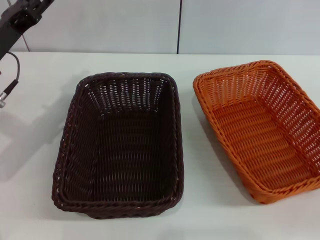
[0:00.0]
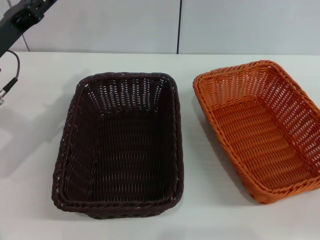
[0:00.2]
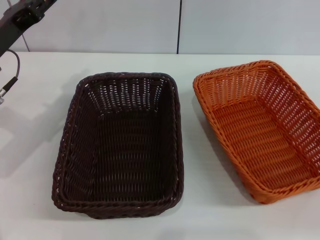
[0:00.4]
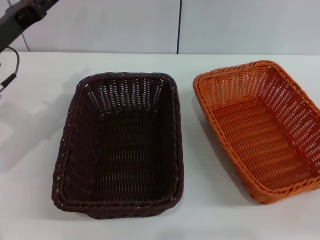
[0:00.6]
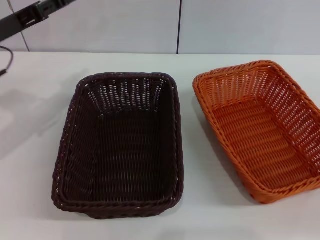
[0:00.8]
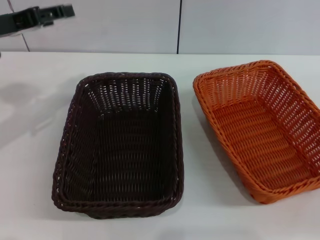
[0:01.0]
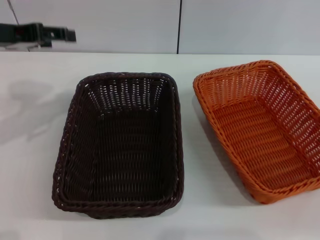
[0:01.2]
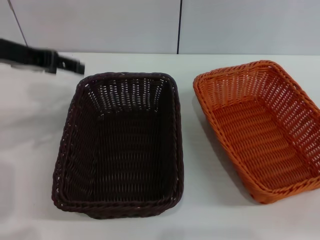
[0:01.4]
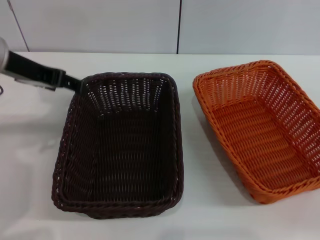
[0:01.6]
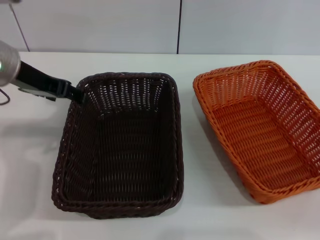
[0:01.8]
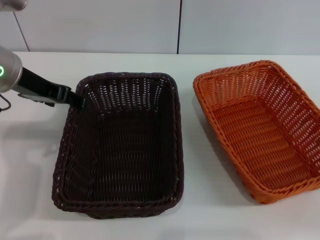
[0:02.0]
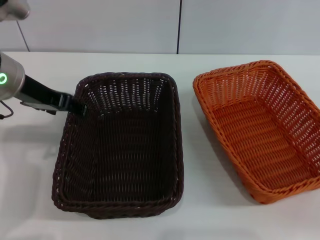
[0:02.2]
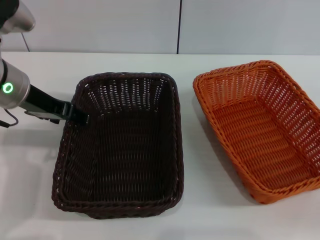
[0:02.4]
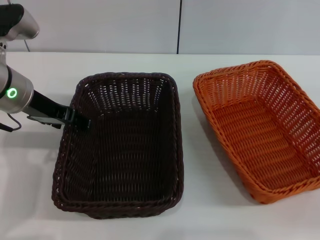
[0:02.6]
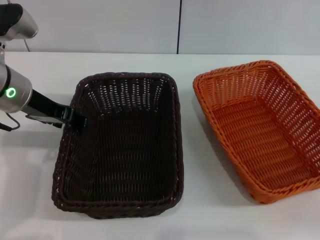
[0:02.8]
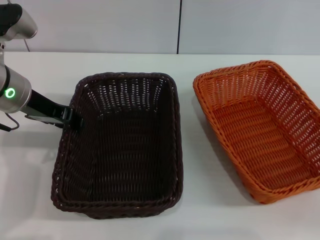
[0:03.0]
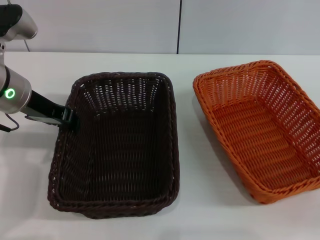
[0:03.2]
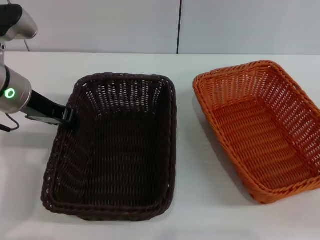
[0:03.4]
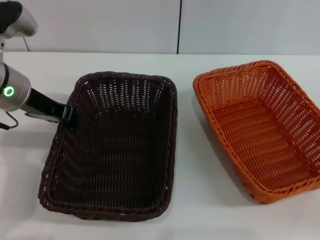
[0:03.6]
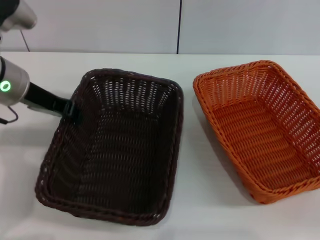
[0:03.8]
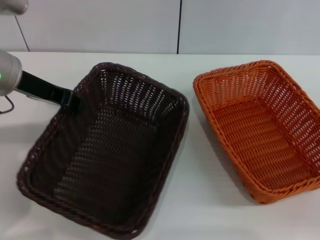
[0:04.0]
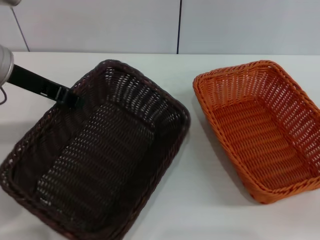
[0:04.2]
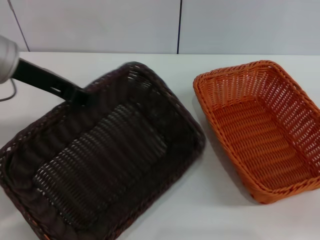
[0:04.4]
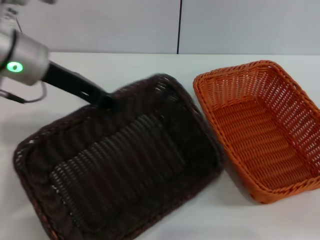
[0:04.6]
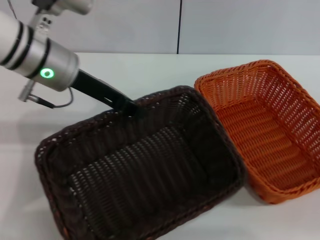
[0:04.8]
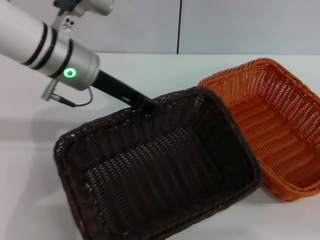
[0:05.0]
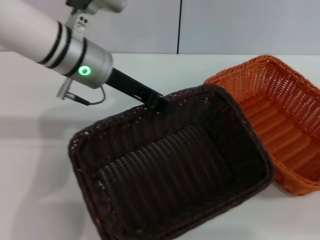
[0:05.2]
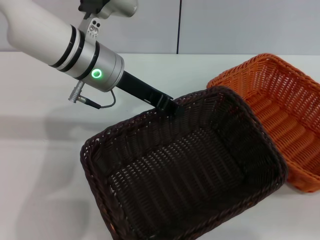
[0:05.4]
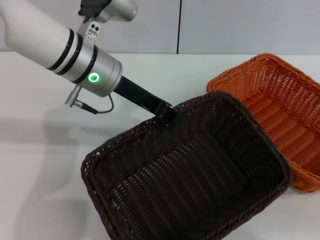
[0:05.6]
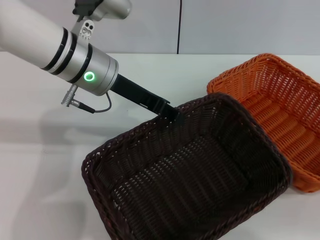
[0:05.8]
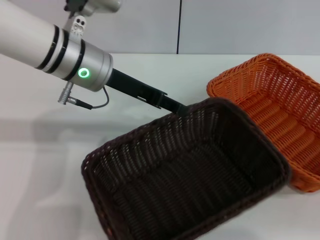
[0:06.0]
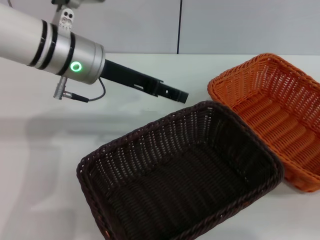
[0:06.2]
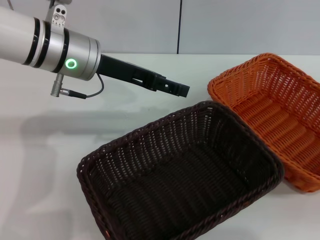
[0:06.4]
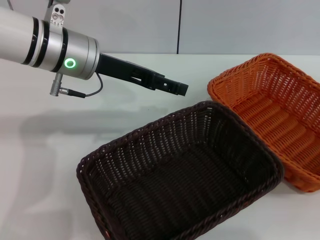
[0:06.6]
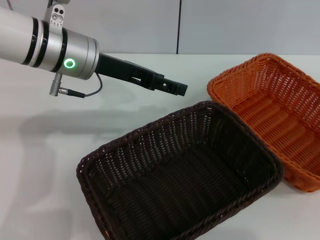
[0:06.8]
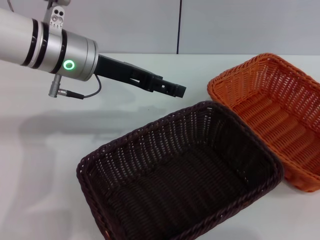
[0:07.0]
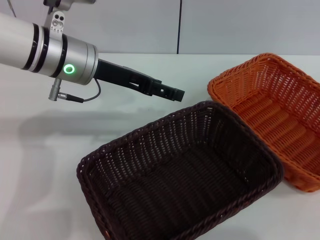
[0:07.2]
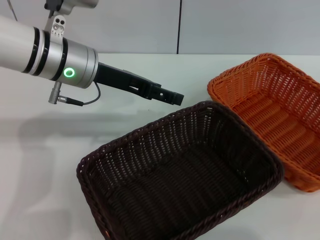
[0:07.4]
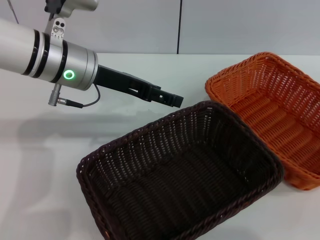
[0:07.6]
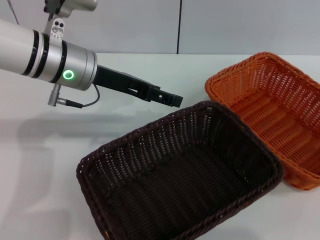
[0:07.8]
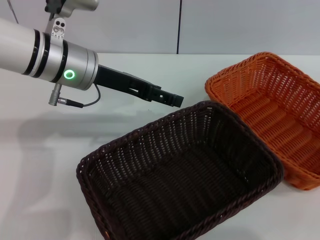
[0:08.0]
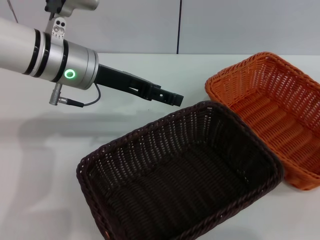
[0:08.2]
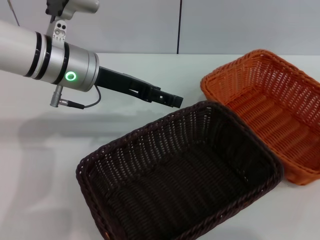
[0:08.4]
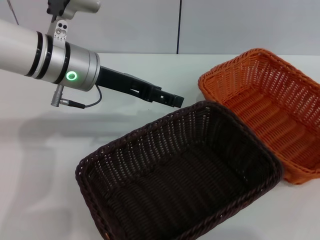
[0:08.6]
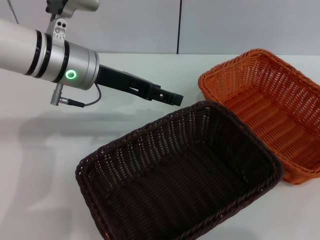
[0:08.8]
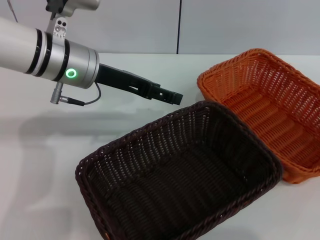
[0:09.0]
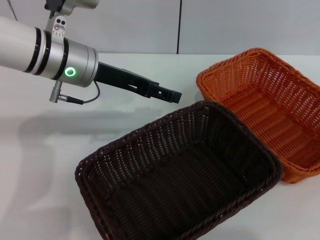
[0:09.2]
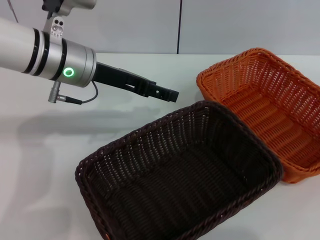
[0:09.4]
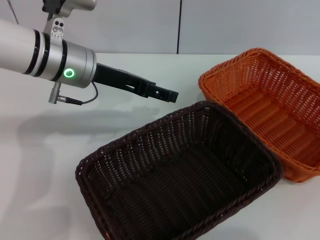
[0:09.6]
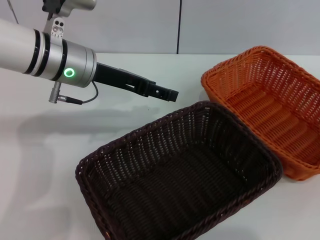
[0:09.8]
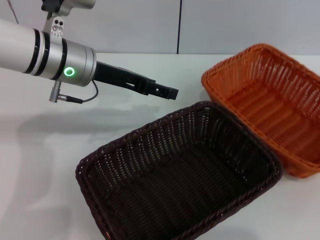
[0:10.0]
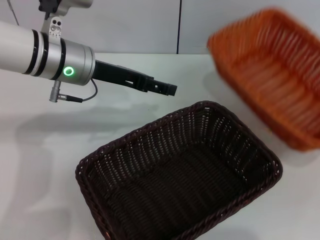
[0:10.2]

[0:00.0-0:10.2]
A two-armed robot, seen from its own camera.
Step, 0:00.0 to 0:03.8: Pick up the dark basket with the left gripper.
Step, 0:04.0 to 0:06.0: Place the dark basket in the center of view with the left gripper.
Step, 0:06.2 to 0:10.2: Pick up the light basket with the right gripper.
0:00.0 to 0:01.4: The left gripper heads upward, covering about 10 cm.
0:01.4 to 0:03.0: The left gripper is displaced downward by about 5 cm.
0:03.0 to 0:04.4: The left gripper shifts about 5 cm upward, and closes up.
0:04.4 to 0:05.8: The left gripper moves to the right, roughly 10 cm.
0:05.8 to 0:07.2: The left gripper opens. The right gripper shifts some 15 cm upward.
0:07.2 to 0:08.8: The right gripper shifts roughly 5 cm downward.
0:08.8 to 0:10.2: The right gripper closes up.

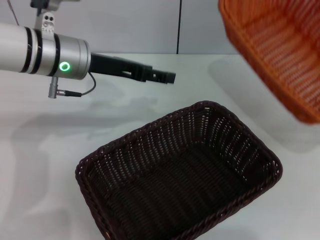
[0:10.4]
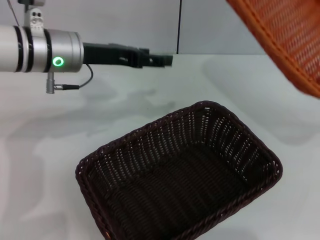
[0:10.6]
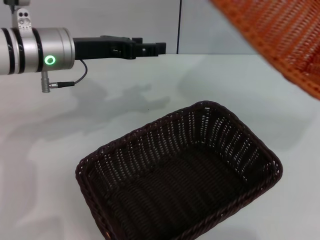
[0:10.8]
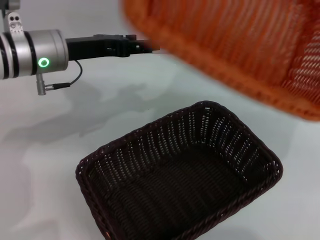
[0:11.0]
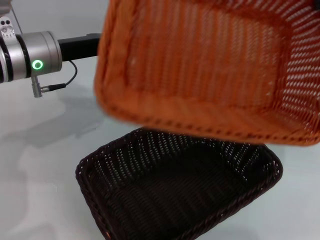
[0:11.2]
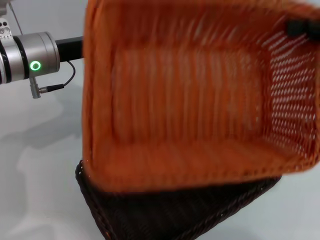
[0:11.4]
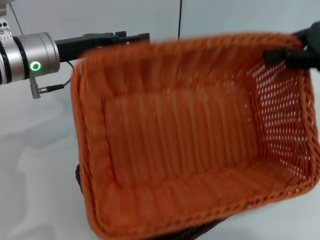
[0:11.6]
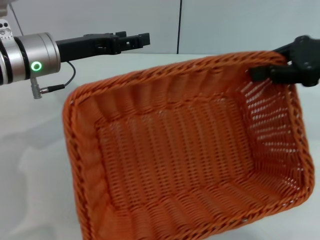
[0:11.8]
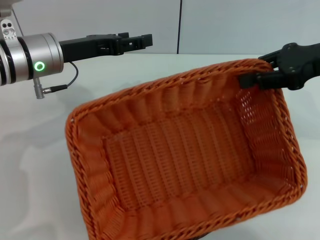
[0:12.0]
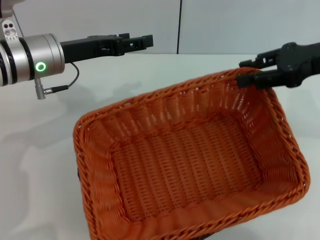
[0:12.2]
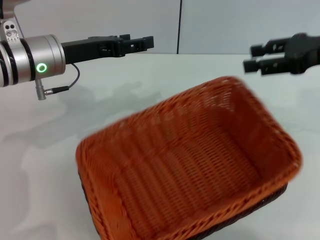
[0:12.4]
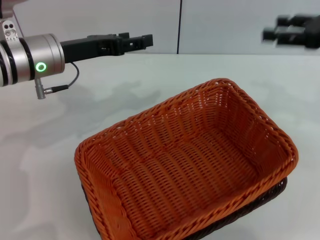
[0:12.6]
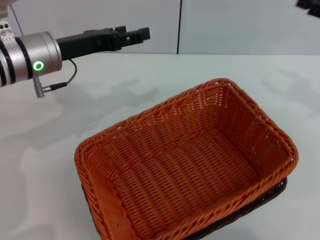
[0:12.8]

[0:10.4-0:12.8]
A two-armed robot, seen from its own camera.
Step, 0:10.4 to 0:12.2: Place the light basket on the dark basket with the right gripper.
0:10.4 to 0:11.6: The right gripper goes some 15 cm to the left and upward.
0:11.6 to 0:12.8: The right gripper shifts roughly 5 cm downward, and opens.

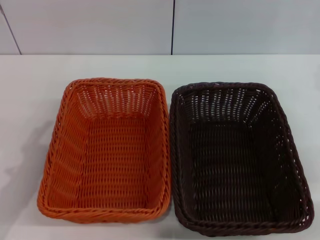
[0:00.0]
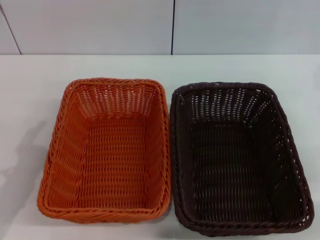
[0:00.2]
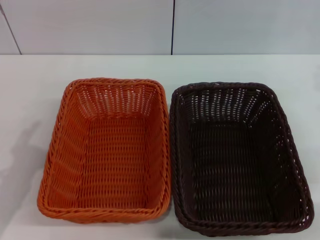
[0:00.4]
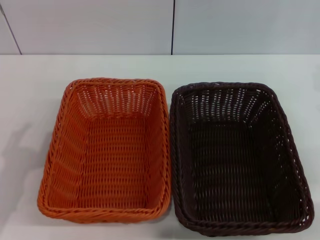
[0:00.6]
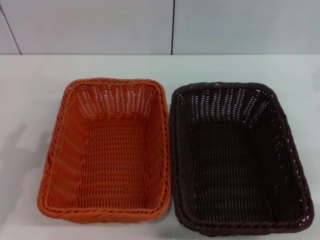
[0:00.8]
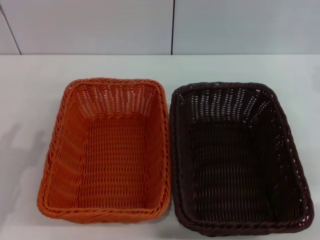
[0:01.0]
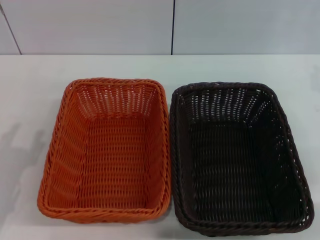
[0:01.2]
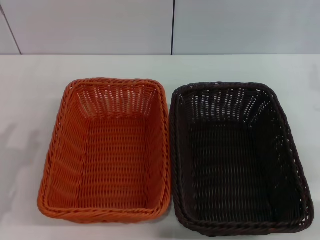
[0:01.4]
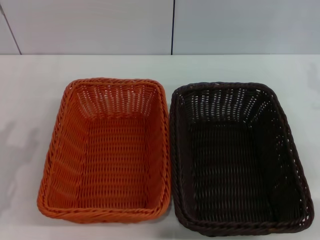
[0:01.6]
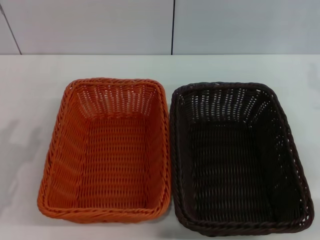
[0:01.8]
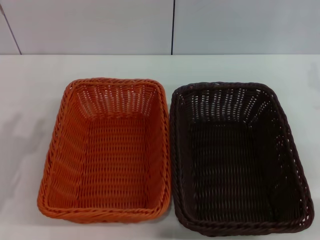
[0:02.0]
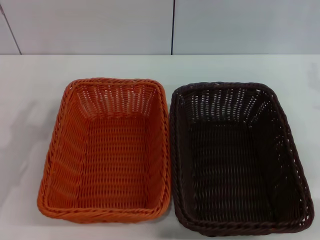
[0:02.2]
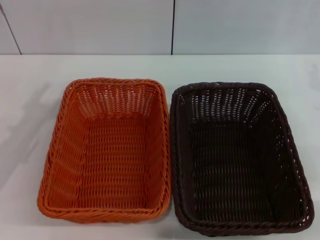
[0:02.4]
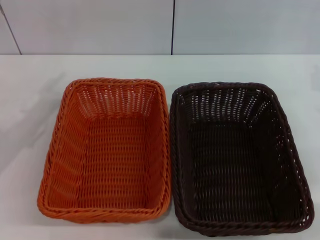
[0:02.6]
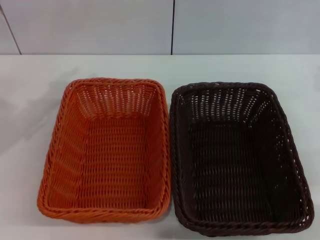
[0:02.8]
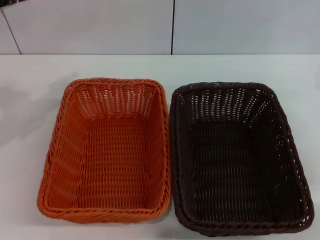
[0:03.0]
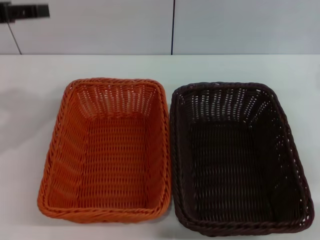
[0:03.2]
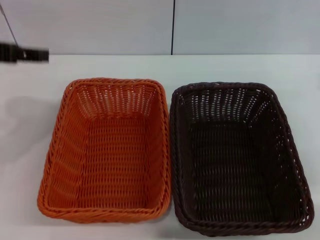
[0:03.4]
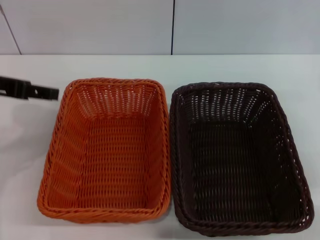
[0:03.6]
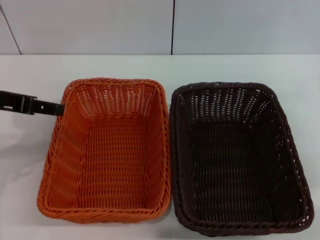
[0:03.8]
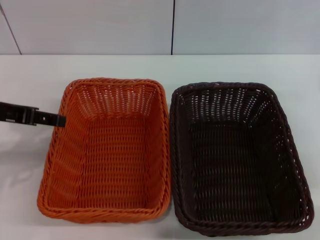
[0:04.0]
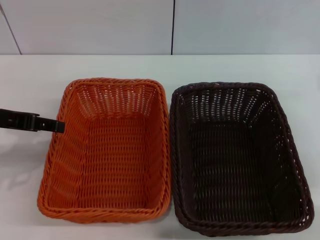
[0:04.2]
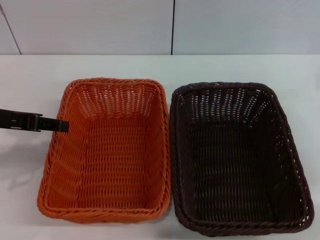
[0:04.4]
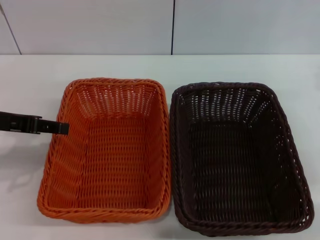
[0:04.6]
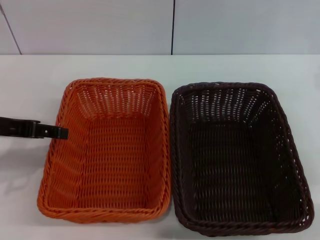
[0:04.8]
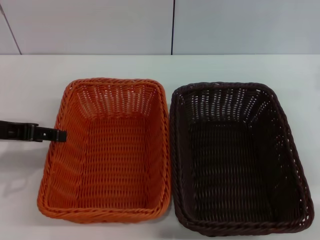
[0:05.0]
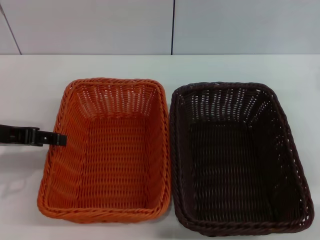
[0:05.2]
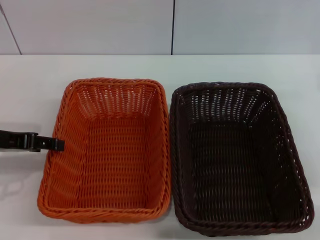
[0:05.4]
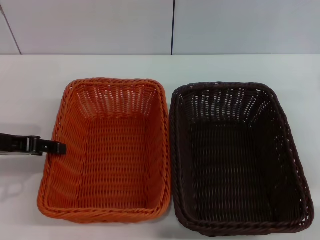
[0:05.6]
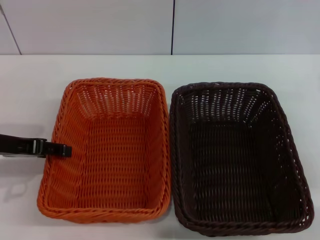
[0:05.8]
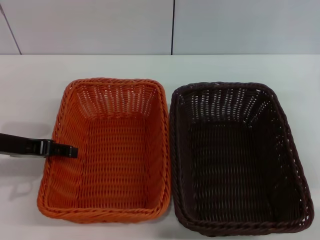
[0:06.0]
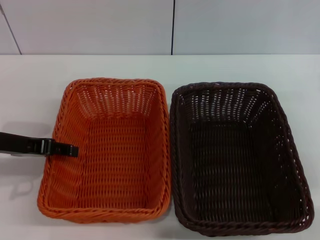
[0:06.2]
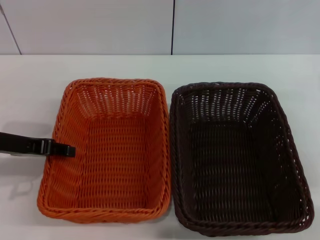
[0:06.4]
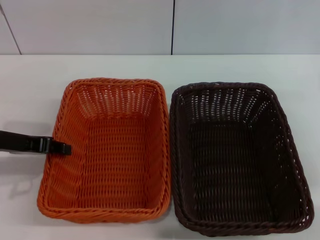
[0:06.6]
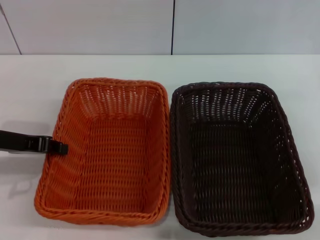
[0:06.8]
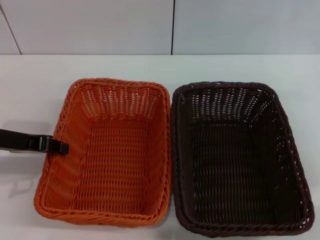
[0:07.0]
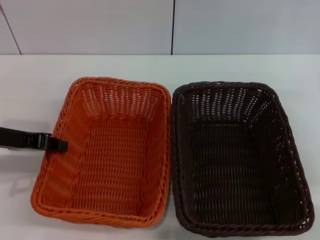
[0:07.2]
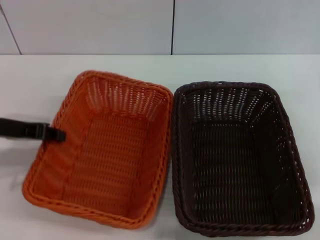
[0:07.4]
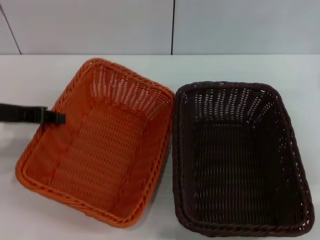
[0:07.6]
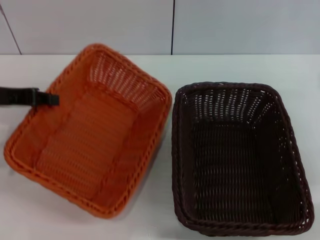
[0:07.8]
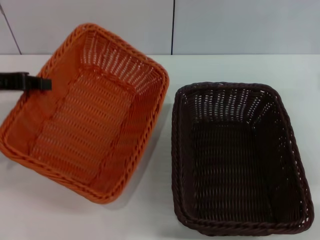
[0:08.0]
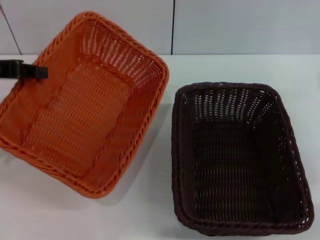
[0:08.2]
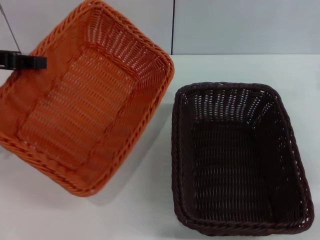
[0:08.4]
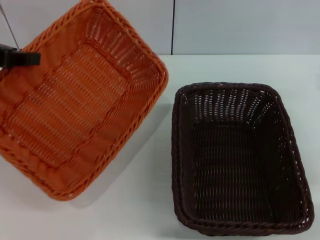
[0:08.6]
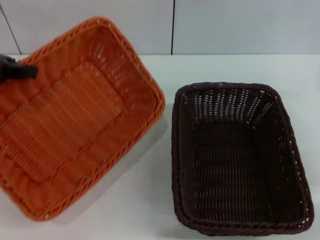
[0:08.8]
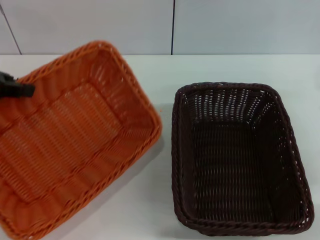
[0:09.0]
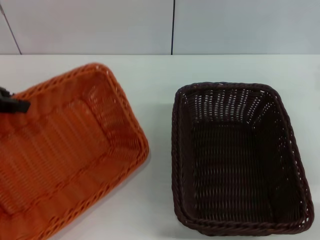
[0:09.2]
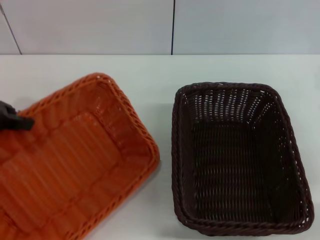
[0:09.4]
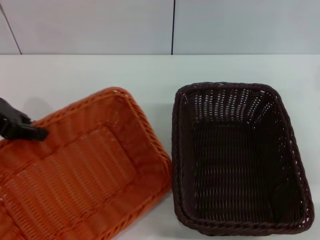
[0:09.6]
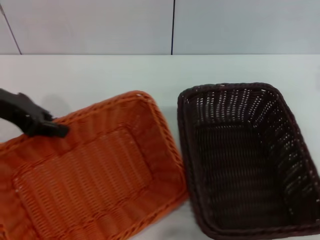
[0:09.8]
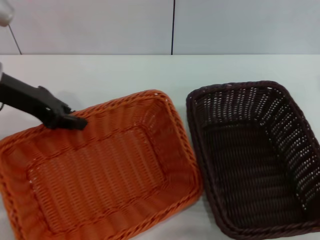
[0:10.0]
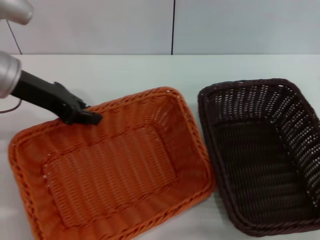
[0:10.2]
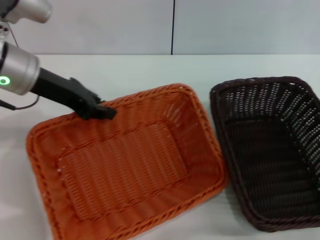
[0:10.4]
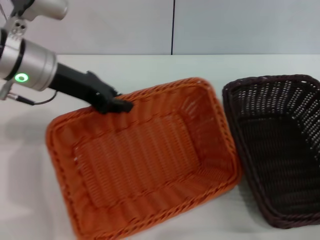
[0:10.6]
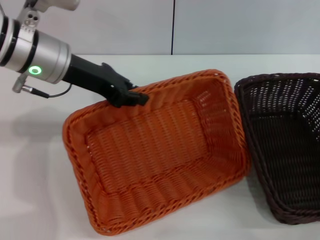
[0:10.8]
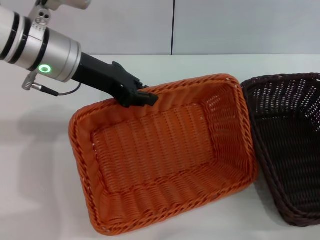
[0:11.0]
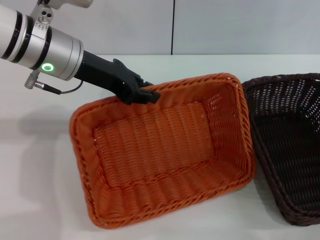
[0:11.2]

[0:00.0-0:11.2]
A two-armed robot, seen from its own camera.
Step, 0:00.0 to 0:07.0: Grasp the light basket with left gripper.
0:01.6 to 0:03.2: The left gripper moves upward and forward, roughly 20 cm.
0:03.2 to 0:04.8: The left gripper shifts approximately 10 cm downward.
0:04.8 to 0:06.4: The grippers make only small movements.
0:06.4 to 0:08.0: The left gripper moves upward, some 5 cm, and closes.
0:09.6 to 0:11.2: The left gripper is displaced to the right by approximately 15 cm.
